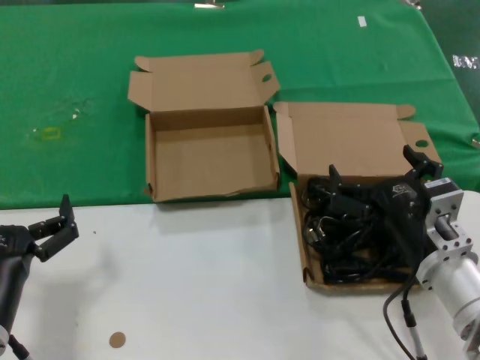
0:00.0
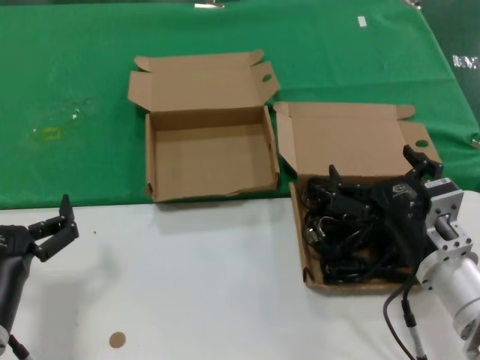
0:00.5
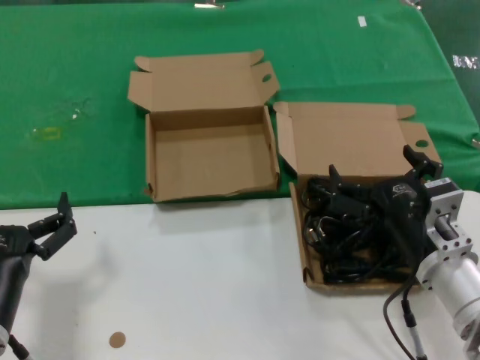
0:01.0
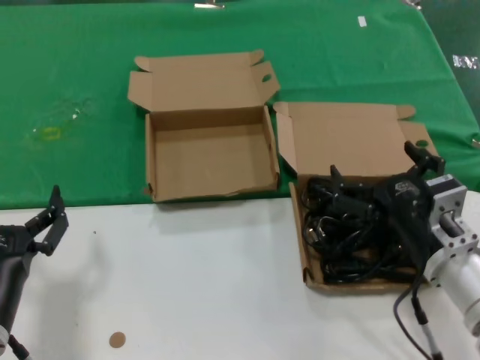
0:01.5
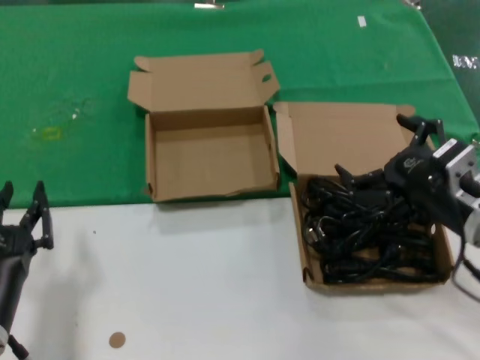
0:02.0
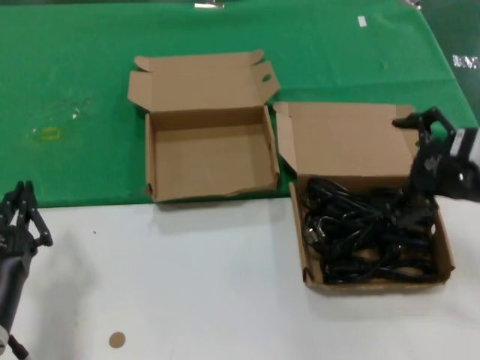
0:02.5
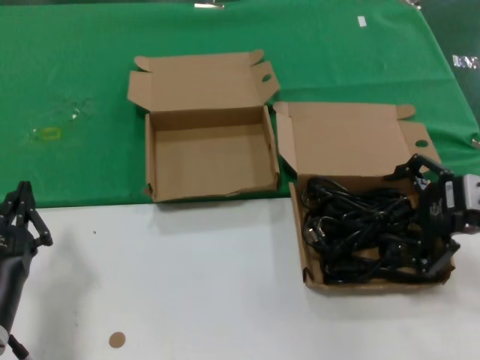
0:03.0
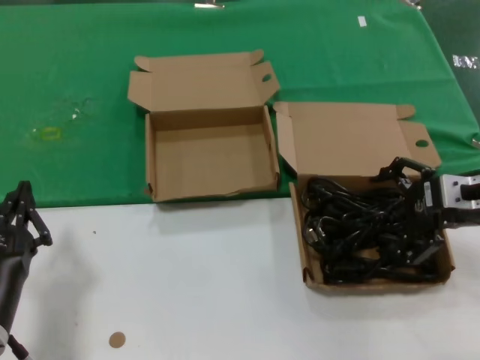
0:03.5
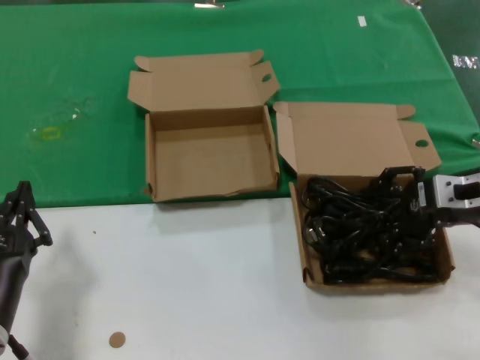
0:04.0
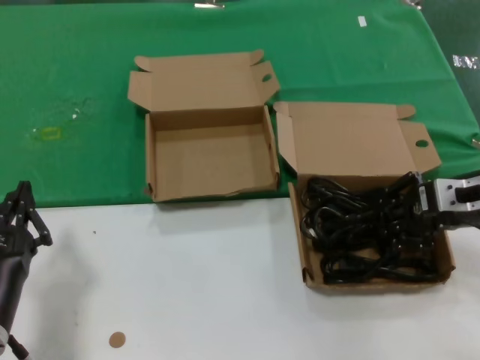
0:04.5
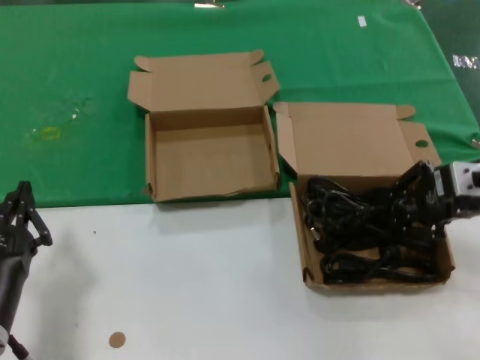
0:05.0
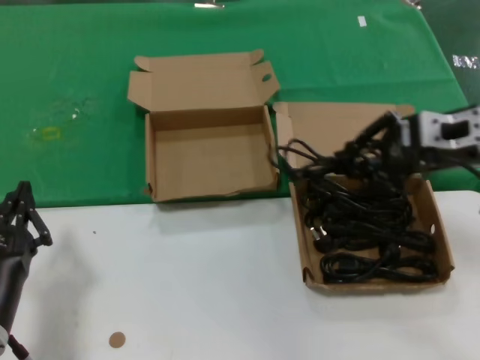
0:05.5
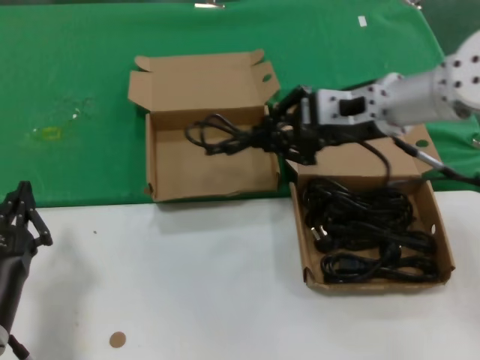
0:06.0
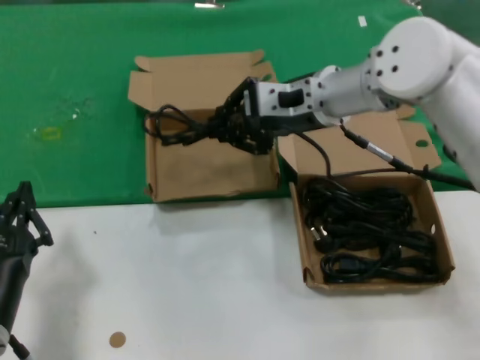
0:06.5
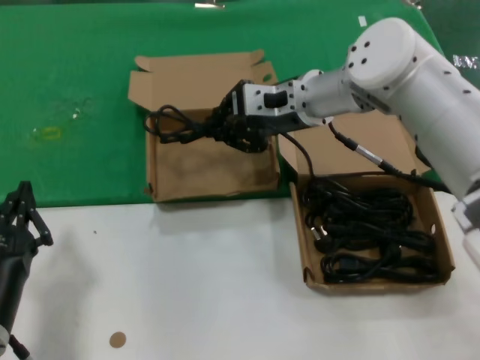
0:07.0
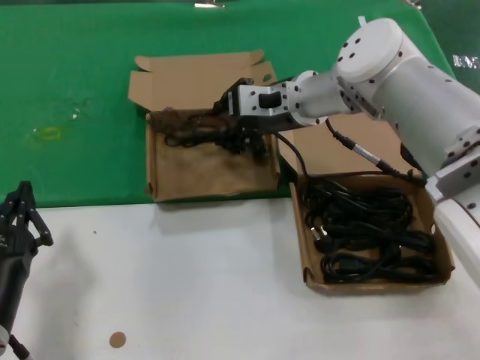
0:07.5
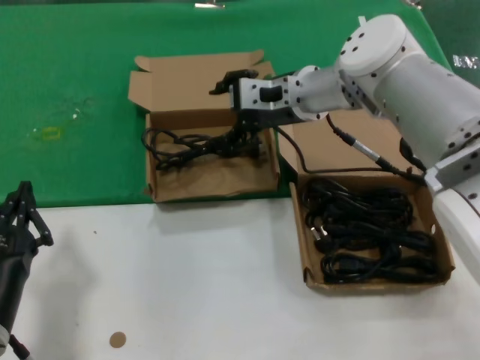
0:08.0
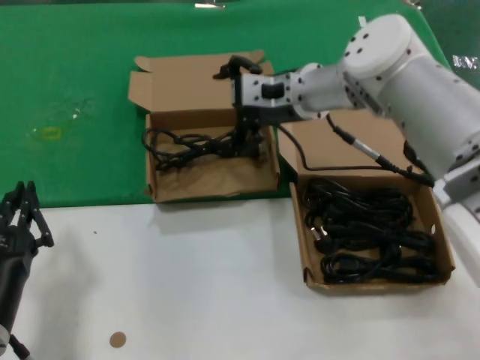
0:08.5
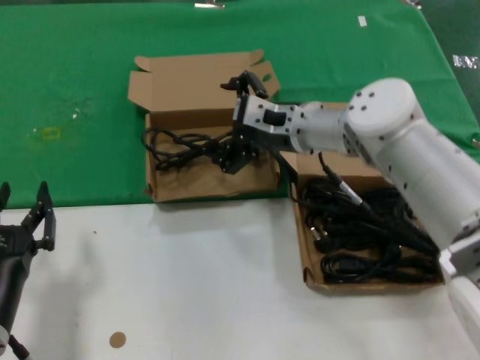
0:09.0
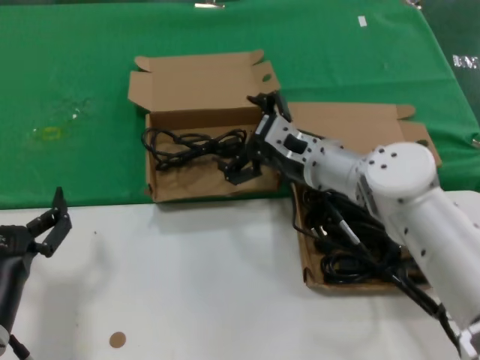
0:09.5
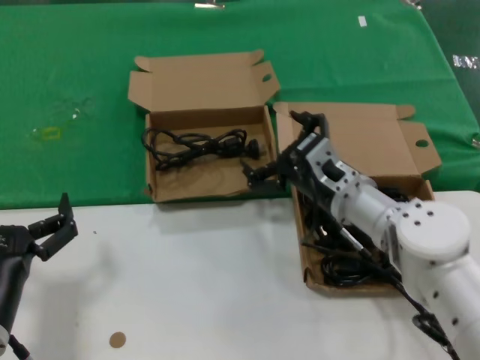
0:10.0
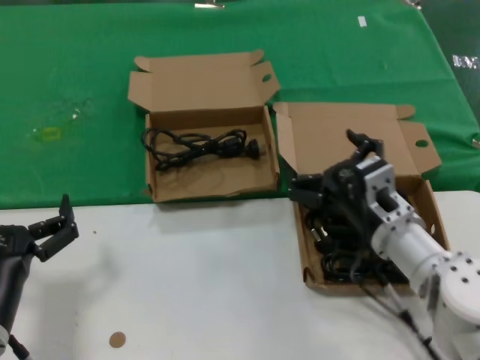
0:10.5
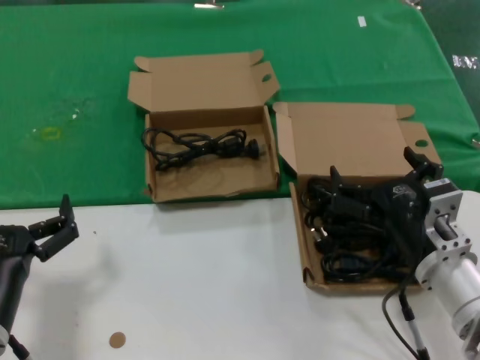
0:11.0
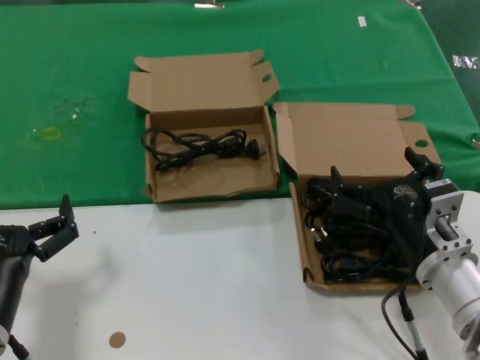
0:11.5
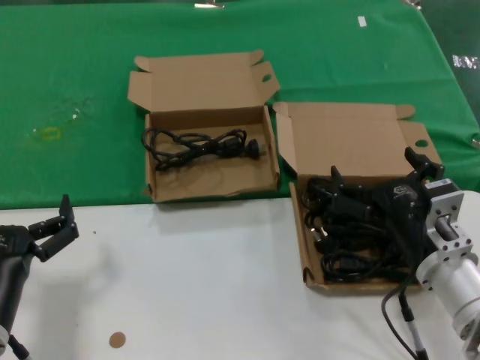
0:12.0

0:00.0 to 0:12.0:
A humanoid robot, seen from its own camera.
Task of the whole recording: take the parts from the box containing them and put them into an empty box.
Step, 0:00.0 to 0:04.5: Grasp the data cable.
Step, 0:05.0 to 0:07.5: Place the data cable in the another box.
0:00.0 to 0:02.0: The right hand travels to the right and upward by approximately 10 cm.
0:02.0 to 0:04.0: The right hand travels forward, to the right and upward by roughly 10 cm.
0:04.0 to 0:06.0: The right hand moves to the left, upward and forward, roughly 15 cm.
0:06.0 to 0:08.0: The right hand moves forward and to the left, some 15 cm.
0:08.0 to 0:10.0: The right hand moves downward and backward, some 20 cm.
0:10.0 to 0:12.0: The right hand goes some 15 cm backward and to the right.

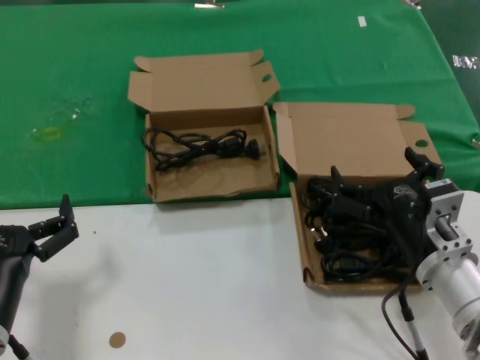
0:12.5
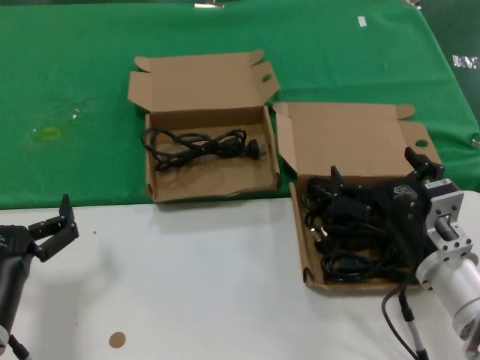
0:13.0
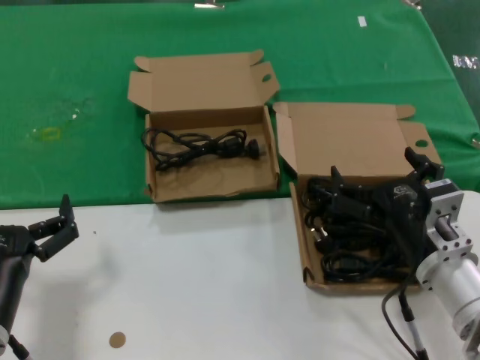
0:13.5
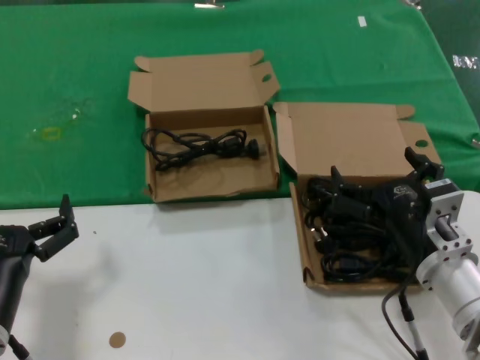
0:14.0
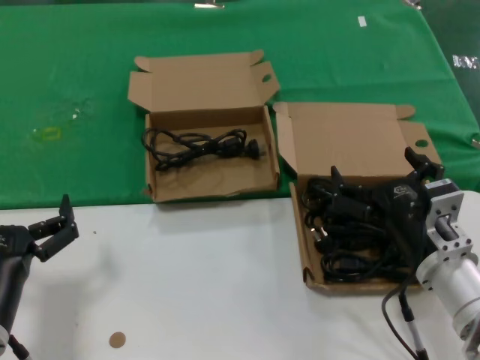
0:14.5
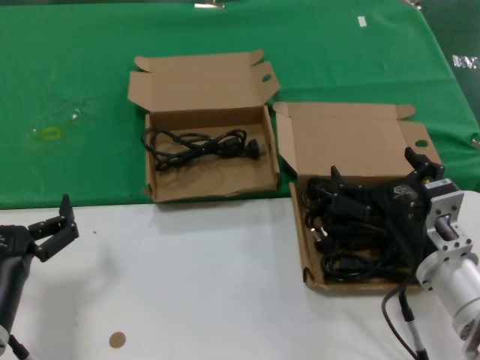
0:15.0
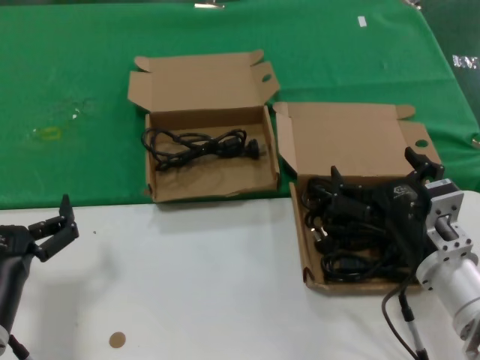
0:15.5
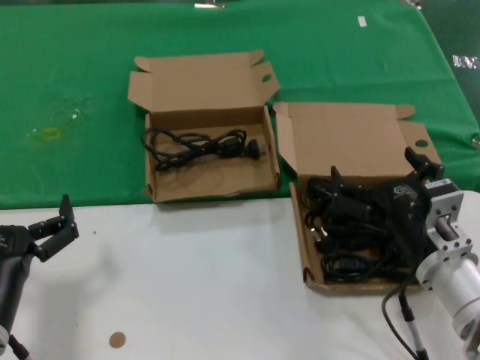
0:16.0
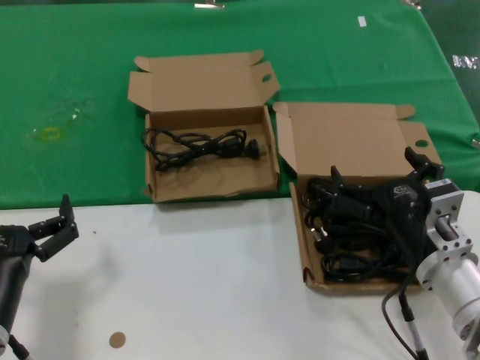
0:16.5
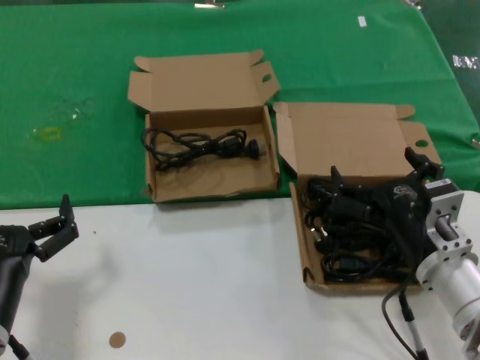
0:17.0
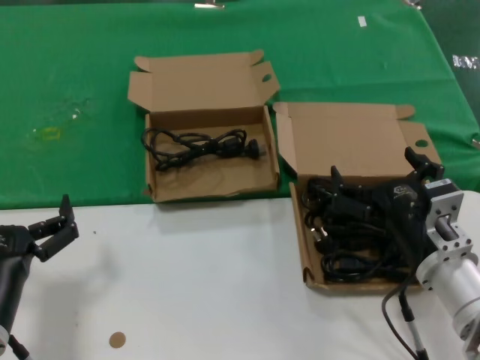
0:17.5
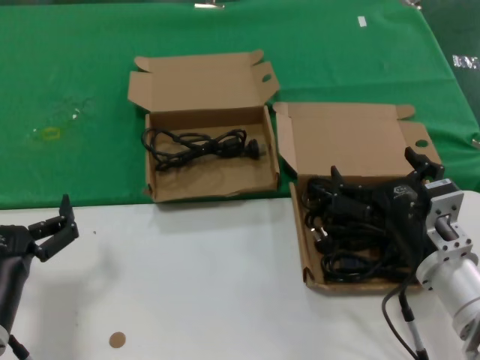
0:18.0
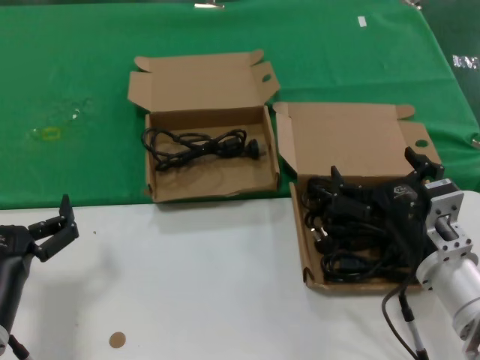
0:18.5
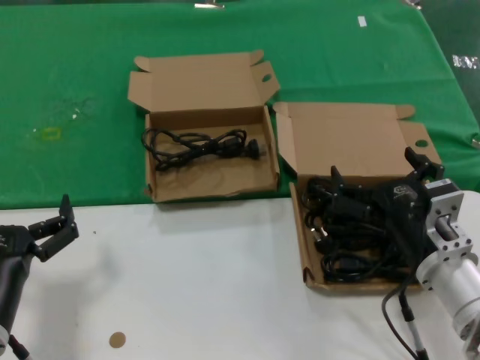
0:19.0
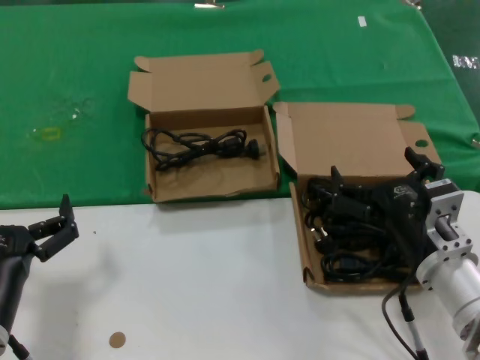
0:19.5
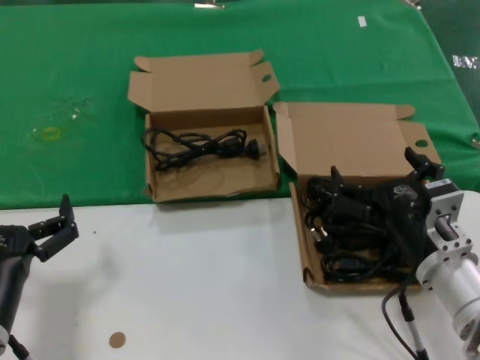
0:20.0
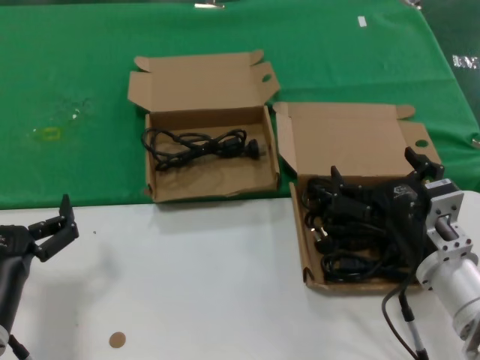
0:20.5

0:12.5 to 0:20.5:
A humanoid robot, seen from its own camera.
Task of the whole recording: take the parts from the box containing them and put them into an empty box.
0:12.5 to 0:20.5: The two hands keep their place.

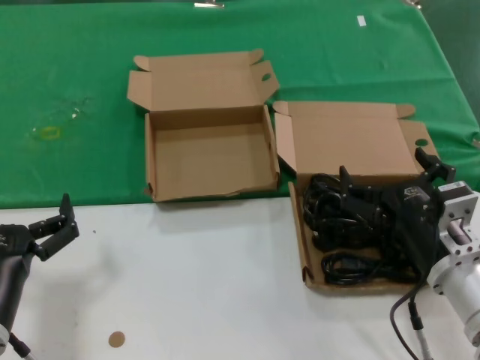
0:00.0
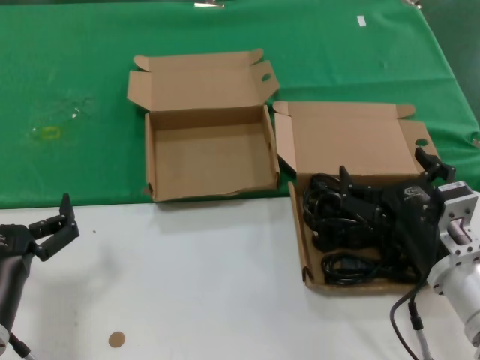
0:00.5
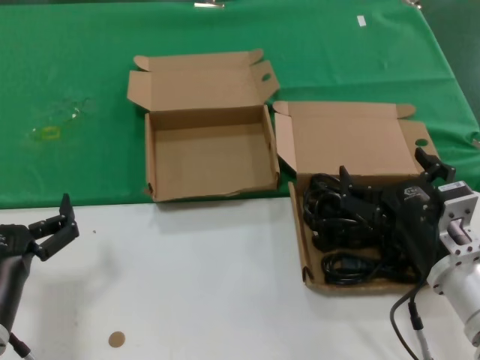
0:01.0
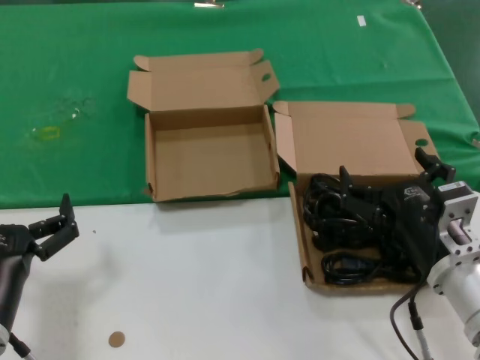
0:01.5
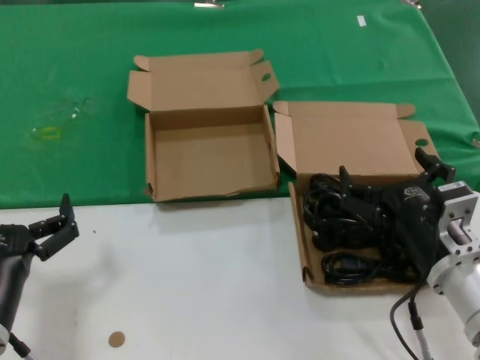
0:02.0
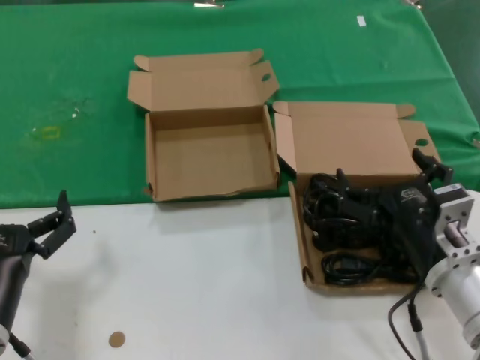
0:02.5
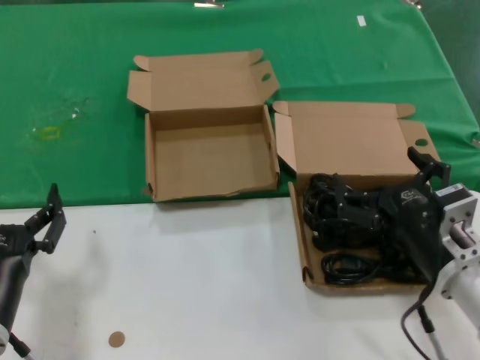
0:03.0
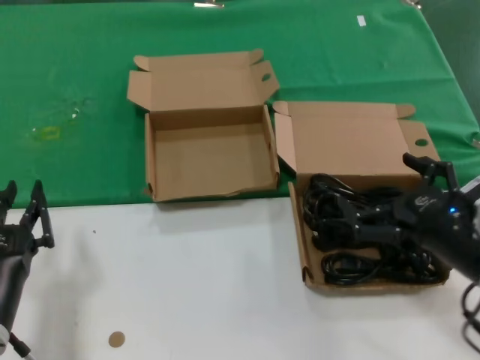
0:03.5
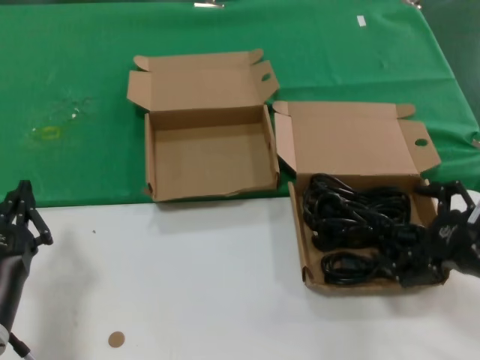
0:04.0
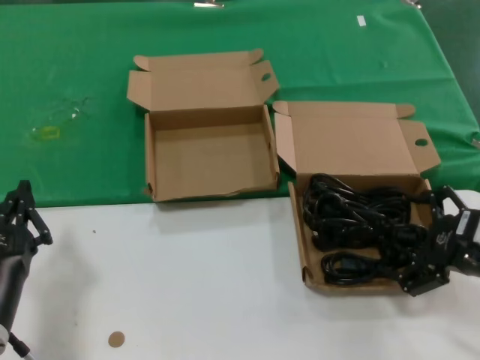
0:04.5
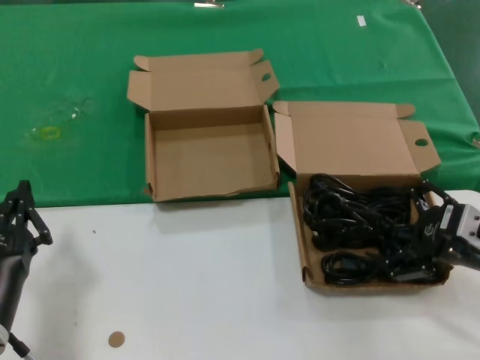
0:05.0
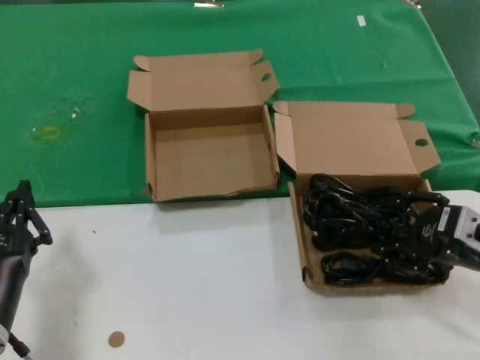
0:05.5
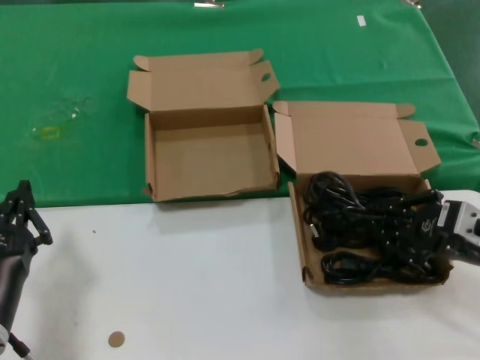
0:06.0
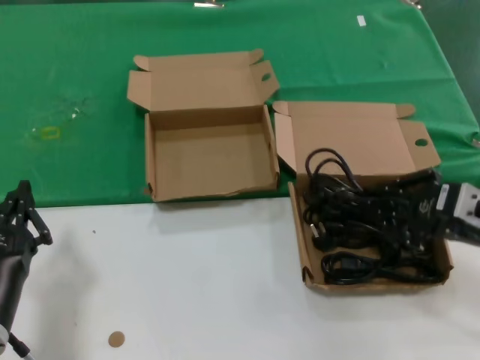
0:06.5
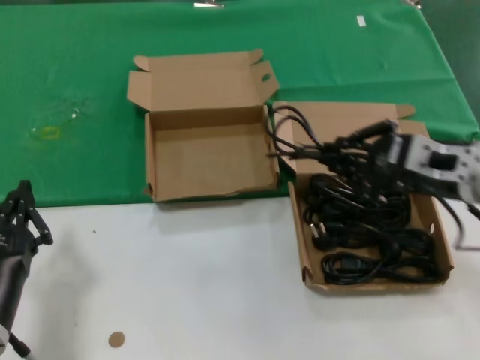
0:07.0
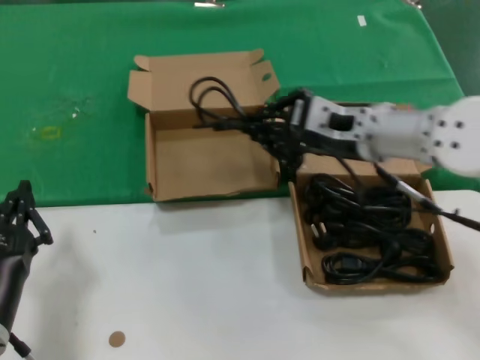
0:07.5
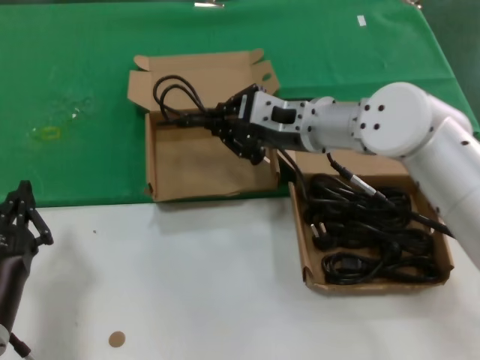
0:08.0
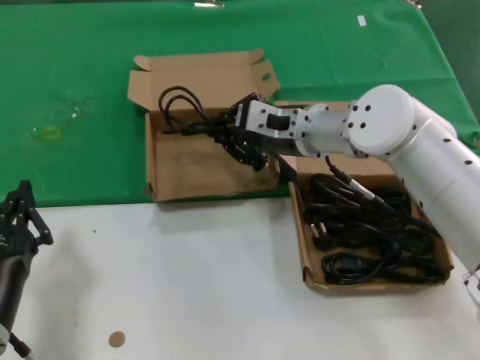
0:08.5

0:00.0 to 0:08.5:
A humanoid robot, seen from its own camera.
Task of the whole recording: take the parts from the box containing them and put them into an empty box.
Step, 0:00.0 to 0:05.5: Grasp the data cable.
0:00.0 to 0:02.0: The two hands keep their place.
0:02.0 to 0:04.0: The right hand moves to the right and upward, roughly 10 cm.
0:04.0 to 0:06.5: The right hand travels forward by approximately 5 cm.
0:06.5 to 0:08.5: The right hand travels to the left and forward by some 30 cm.
